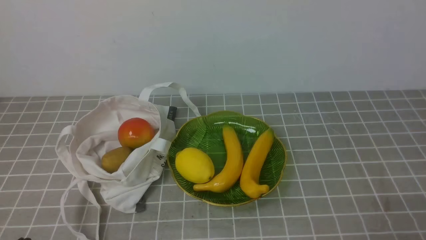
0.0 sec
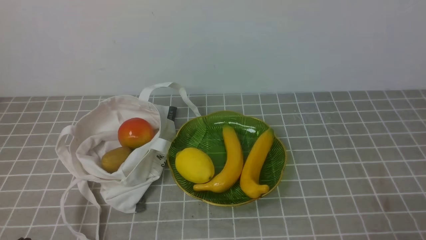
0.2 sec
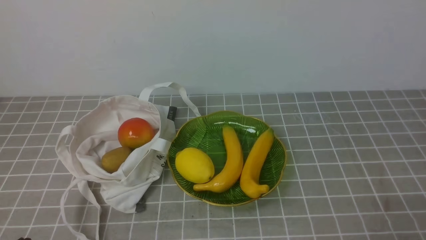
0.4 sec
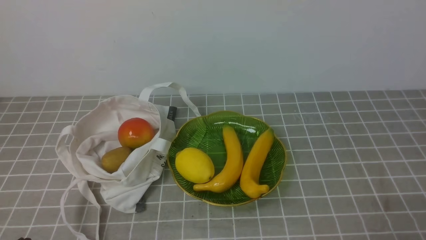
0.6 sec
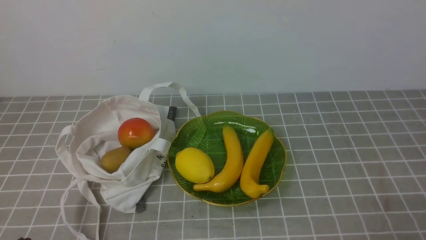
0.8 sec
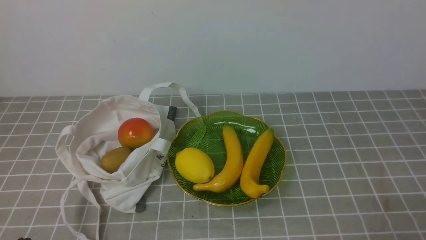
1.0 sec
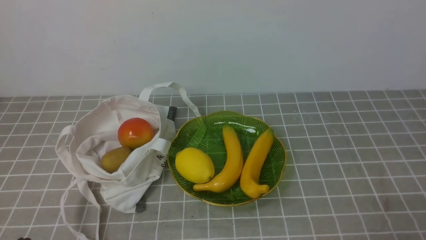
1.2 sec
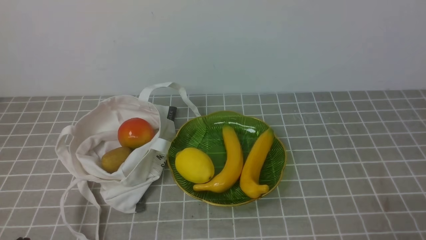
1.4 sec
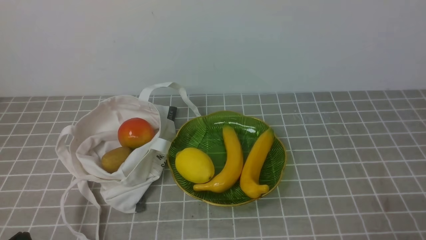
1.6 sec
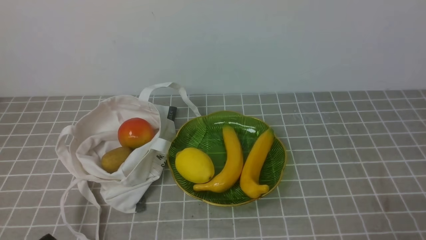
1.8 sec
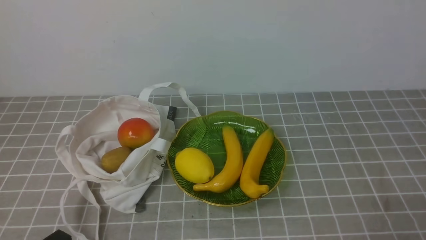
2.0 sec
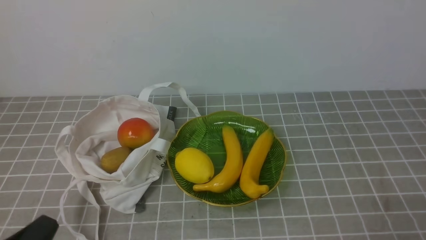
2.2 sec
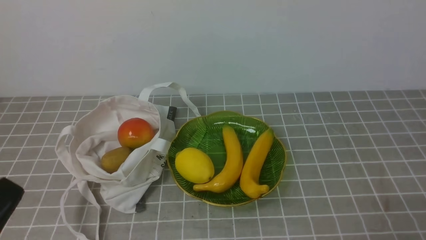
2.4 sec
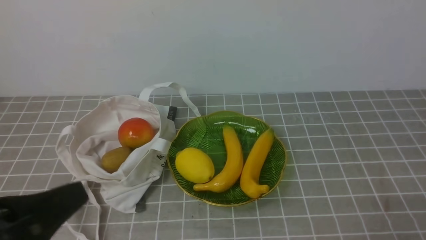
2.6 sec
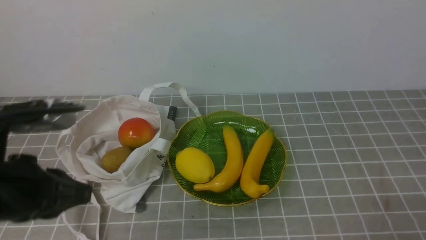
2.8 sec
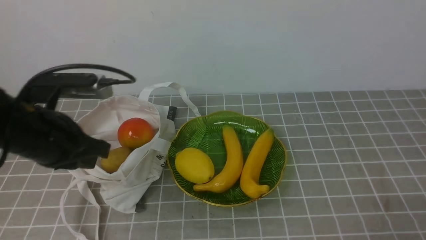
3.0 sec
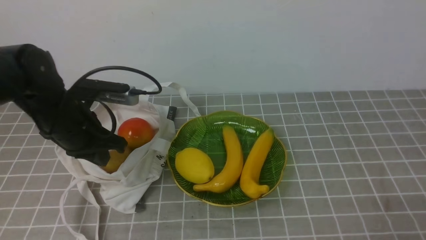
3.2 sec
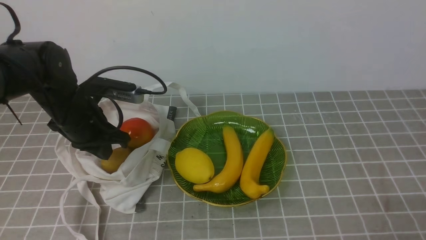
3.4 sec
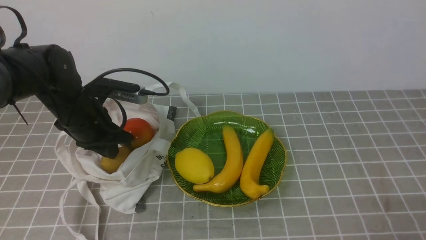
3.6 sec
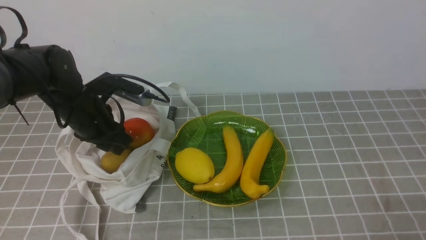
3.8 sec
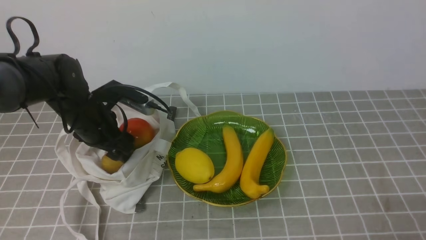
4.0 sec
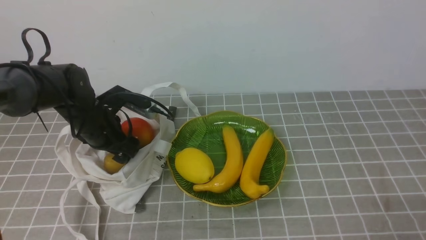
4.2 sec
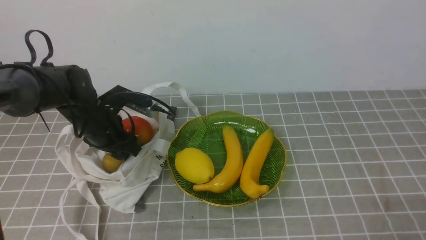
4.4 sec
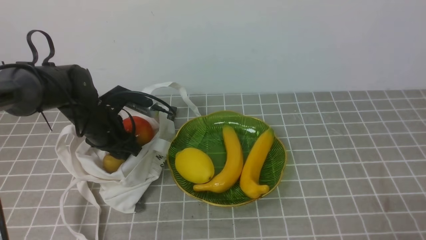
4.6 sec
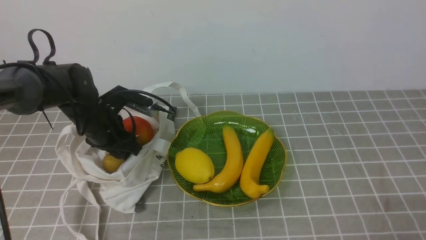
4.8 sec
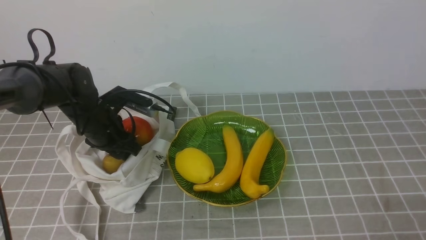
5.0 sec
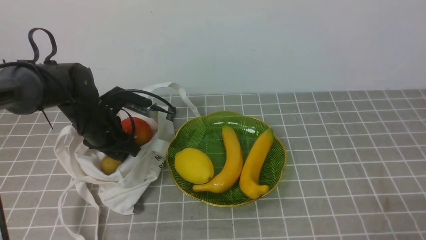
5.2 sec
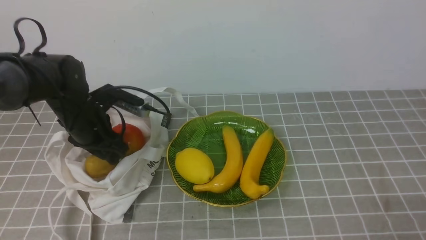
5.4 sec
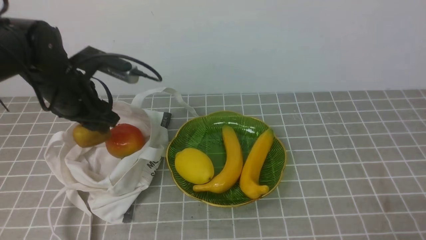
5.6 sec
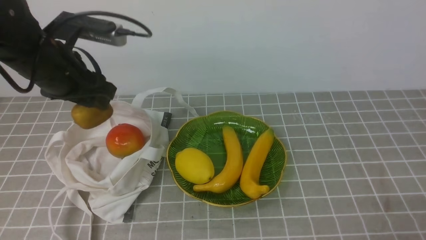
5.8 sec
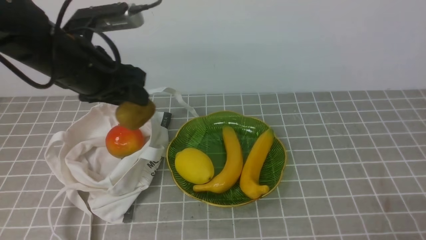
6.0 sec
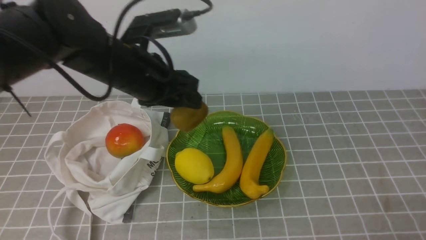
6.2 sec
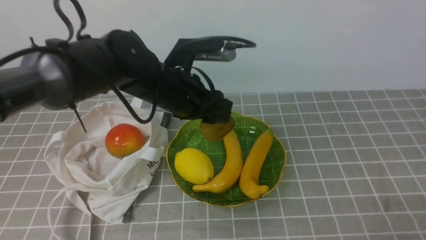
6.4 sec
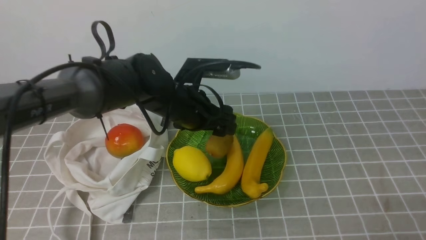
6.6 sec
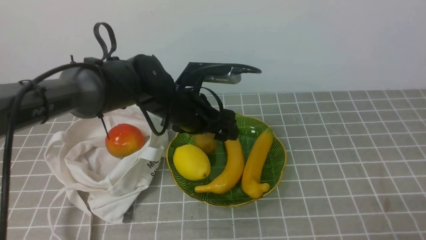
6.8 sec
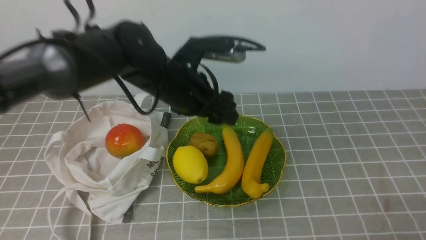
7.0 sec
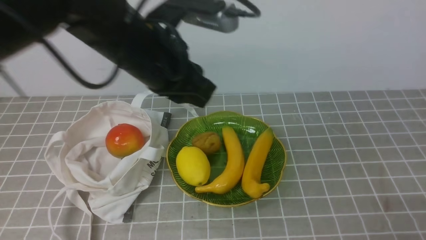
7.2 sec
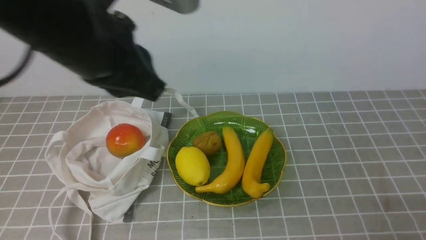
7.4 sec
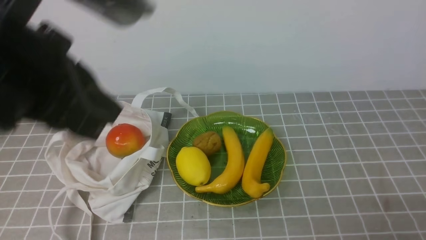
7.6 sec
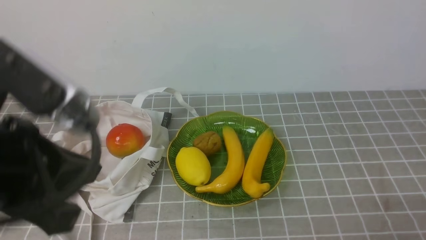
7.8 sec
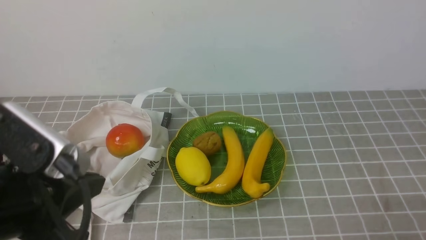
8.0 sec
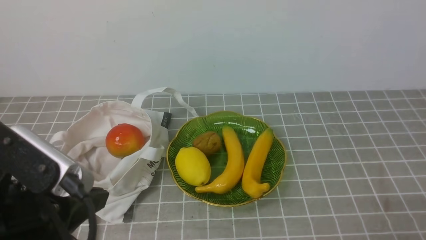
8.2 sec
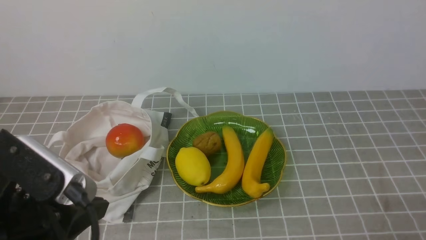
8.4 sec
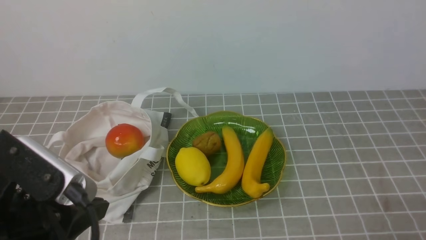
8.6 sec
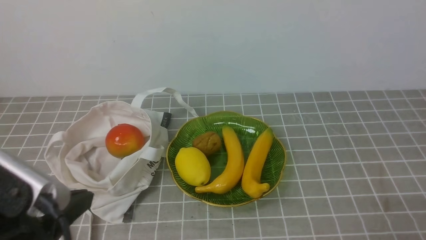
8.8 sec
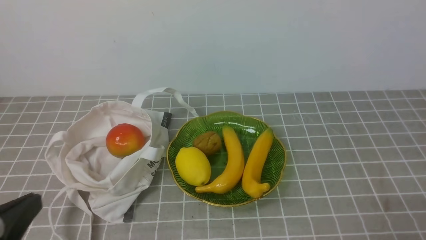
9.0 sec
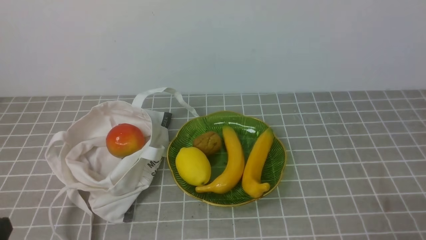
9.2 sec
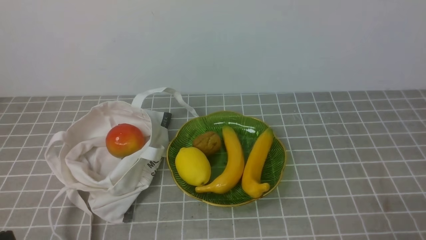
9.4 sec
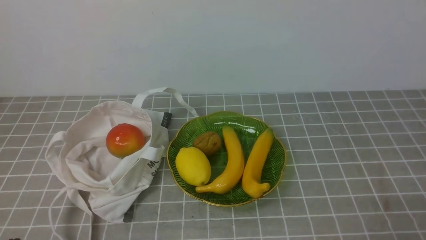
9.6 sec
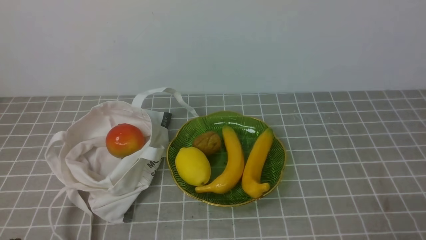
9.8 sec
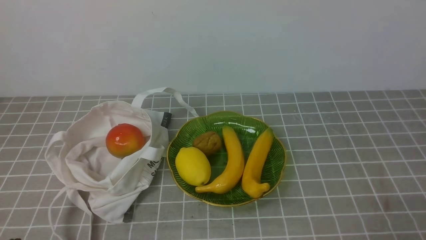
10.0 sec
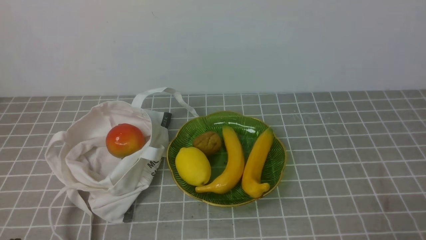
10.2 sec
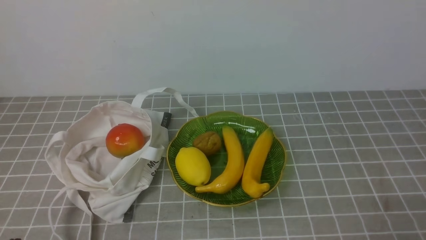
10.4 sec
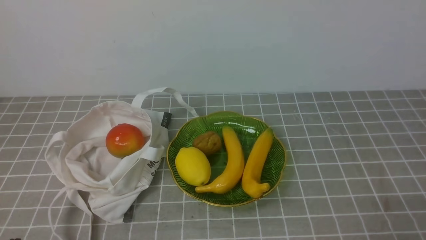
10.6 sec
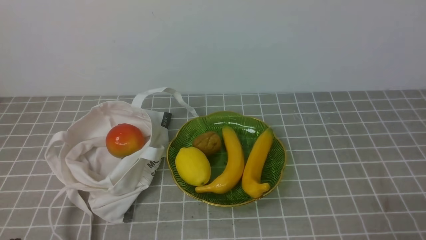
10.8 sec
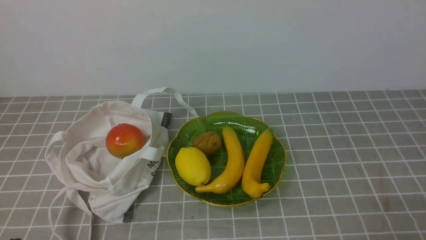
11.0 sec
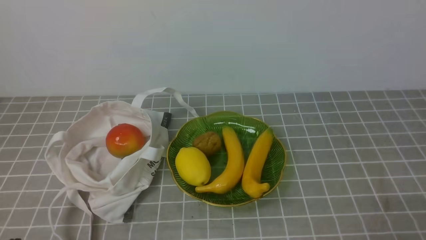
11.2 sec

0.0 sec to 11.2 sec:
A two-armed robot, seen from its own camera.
Step, 0.0 sec to 5.4 sec: use the left arm to grab a kiwi from the bag.
Step, 5.6 sec to 6.8 sec: use the left arm to put the kiwi into the empty plate on the right.
1.6 sec to 3.2 sec: The left gripper is displaced forward by approximately 25 cm.
3.2 sec to 4.8 sec: The left gripper travels downward and forward by roughly 15 cm, and opens.
4.8 sec to 6.4 sec: The left gripper shifts roughly 15 cm to the right and upward.
6.4 sec to 8.0 sec: The left gripper moves backward and to the left, some 25 cm, and closes.
8.0 sec to 9.6 sec: The left gripper travels downward, backward and to the left by about 20 cm.
9.6 sec to 11.2 sec: Both grippers stay put.
